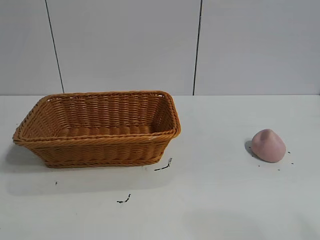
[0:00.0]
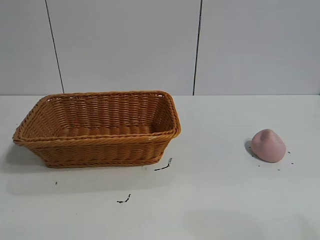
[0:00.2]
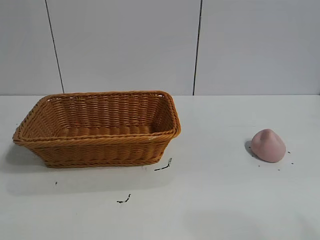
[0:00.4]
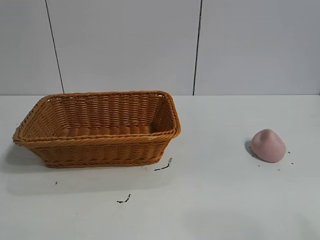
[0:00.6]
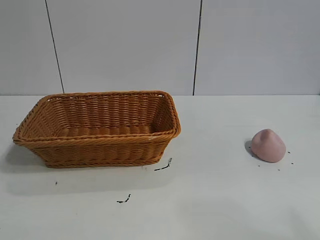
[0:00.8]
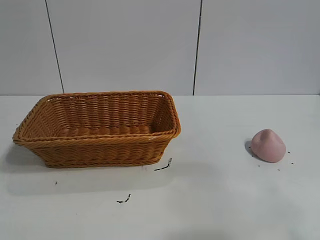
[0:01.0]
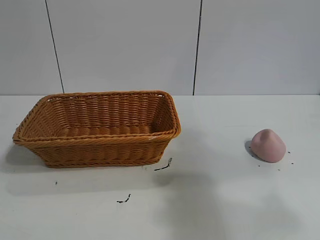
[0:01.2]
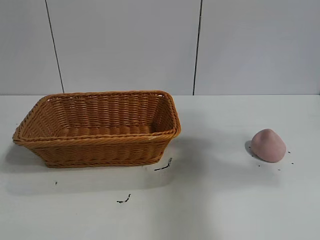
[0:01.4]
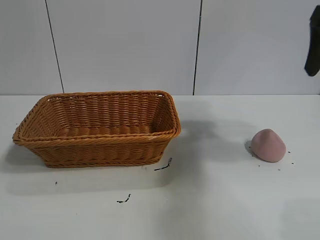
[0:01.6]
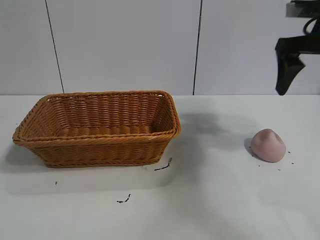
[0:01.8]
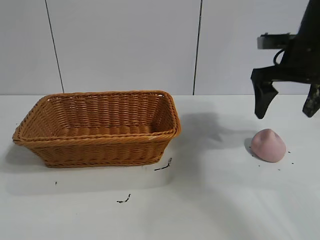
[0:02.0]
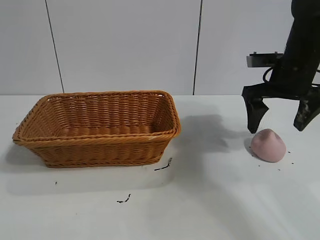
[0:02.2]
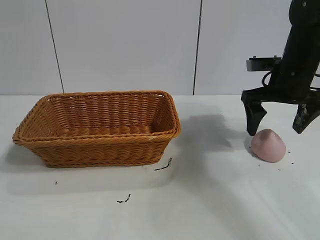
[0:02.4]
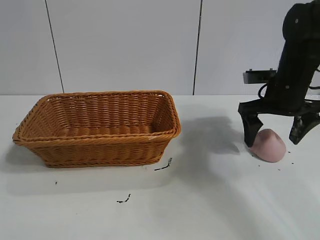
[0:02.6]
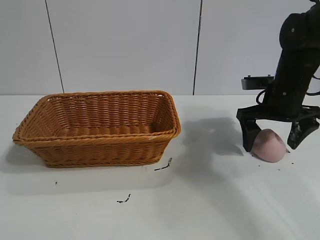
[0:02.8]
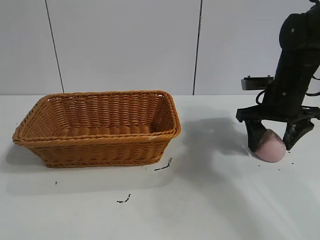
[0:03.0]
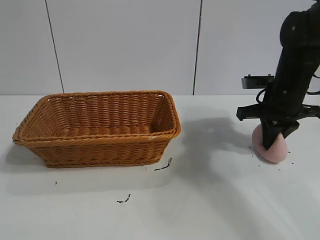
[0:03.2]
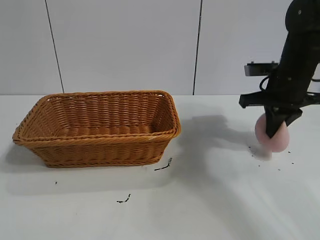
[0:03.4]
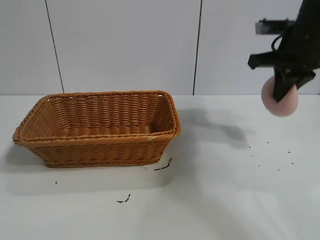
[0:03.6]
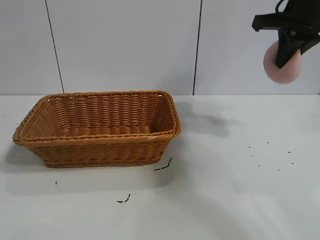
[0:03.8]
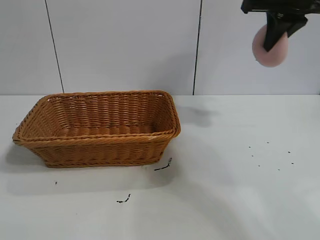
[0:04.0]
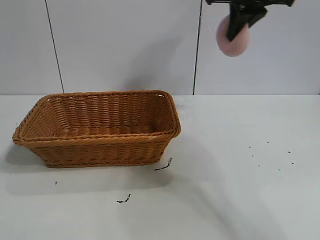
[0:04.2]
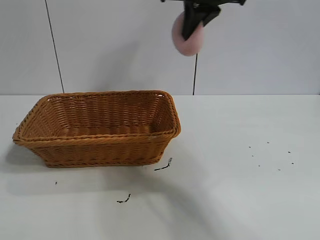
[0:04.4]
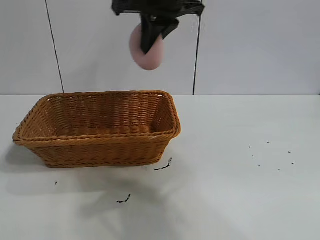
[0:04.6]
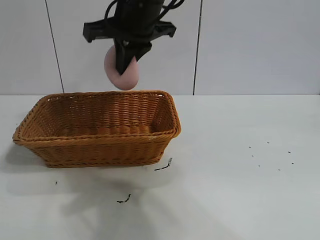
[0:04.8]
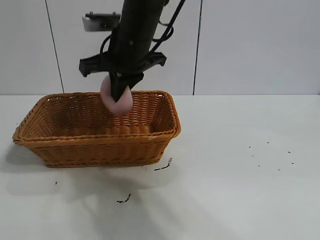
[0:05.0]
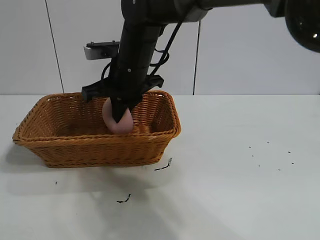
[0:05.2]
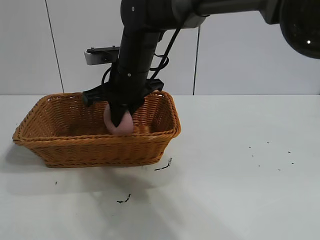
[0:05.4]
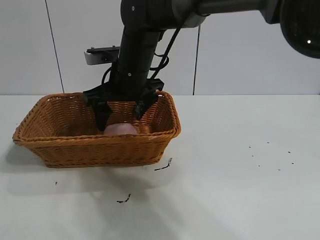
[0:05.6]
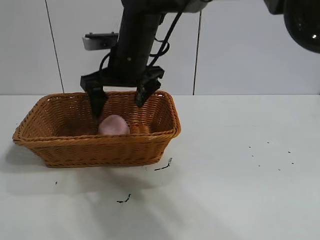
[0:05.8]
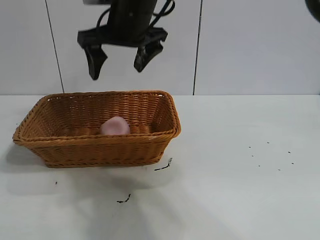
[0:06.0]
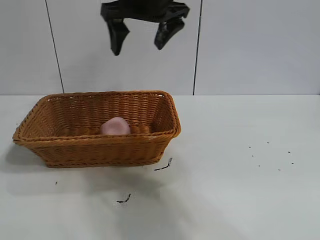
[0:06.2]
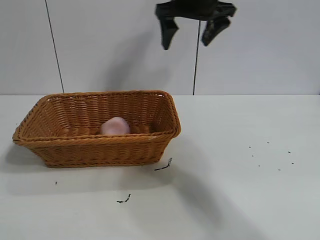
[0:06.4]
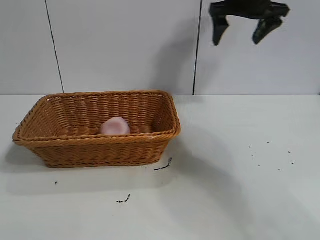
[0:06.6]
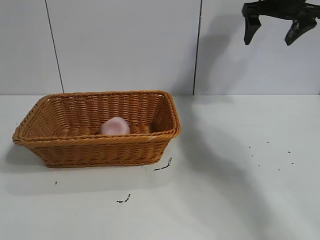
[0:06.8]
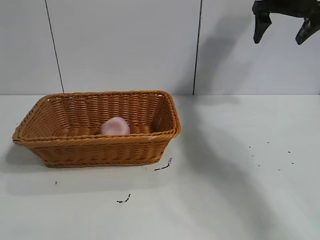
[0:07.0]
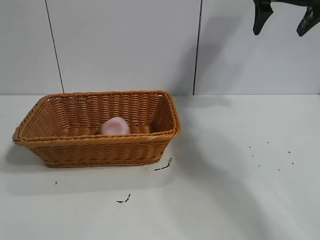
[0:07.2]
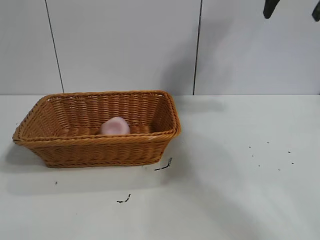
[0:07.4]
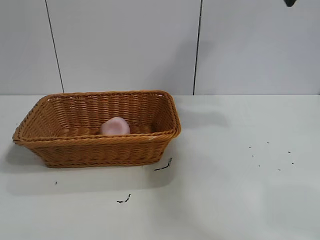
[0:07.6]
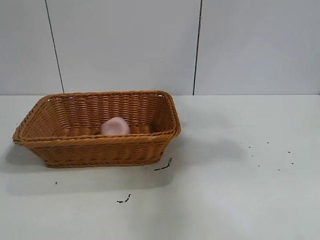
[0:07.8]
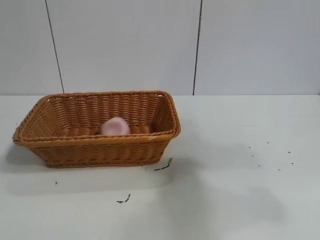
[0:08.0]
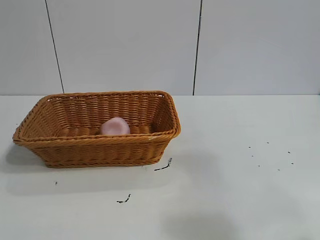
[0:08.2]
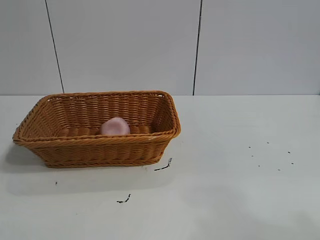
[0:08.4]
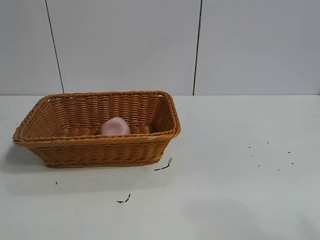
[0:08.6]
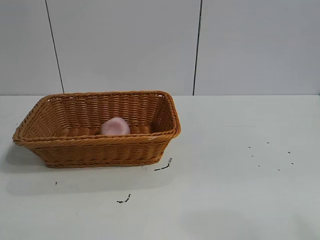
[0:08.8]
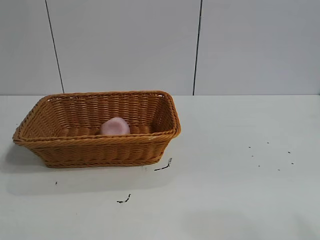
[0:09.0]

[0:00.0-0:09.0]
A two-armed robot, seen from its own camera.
Task of the whole recording: pick up the peach and put it into the basket.
Step, 0:00.8 to 0:03.0: Grasp the peach with right gripper.
Step, 0:03.4 to 0:05.8: Place the peach in the basket with right gripper.
